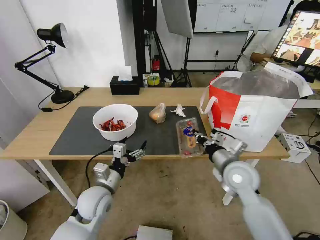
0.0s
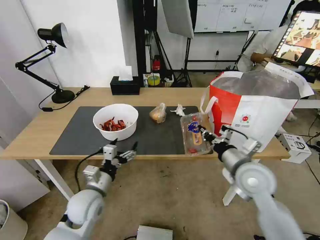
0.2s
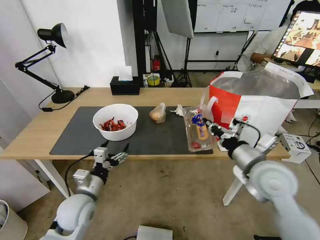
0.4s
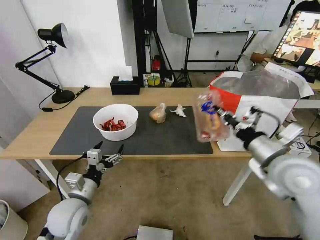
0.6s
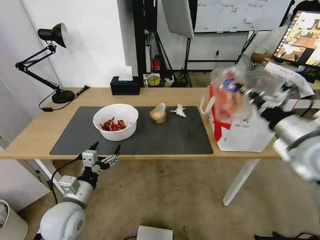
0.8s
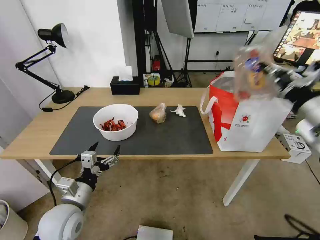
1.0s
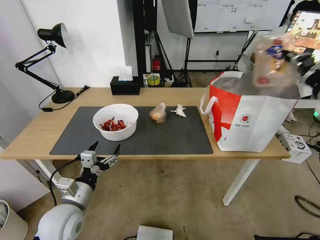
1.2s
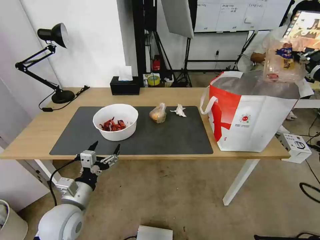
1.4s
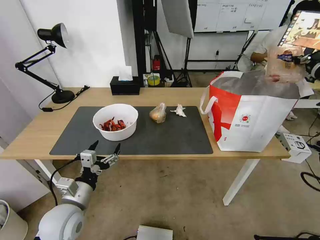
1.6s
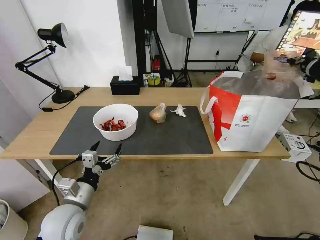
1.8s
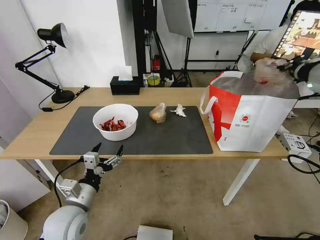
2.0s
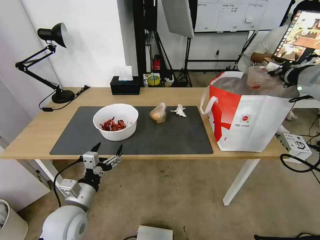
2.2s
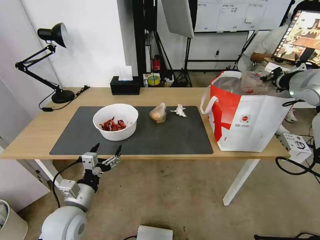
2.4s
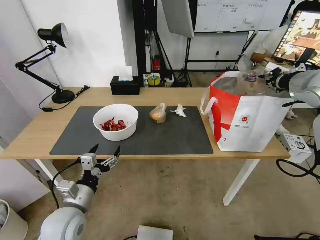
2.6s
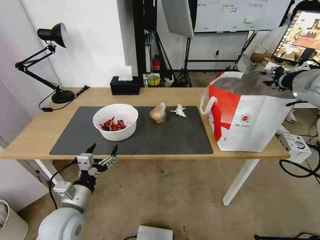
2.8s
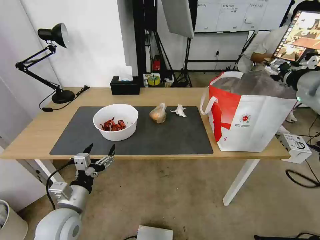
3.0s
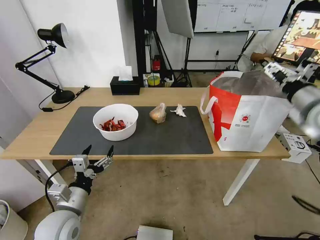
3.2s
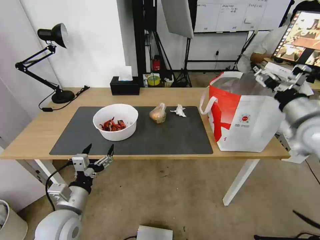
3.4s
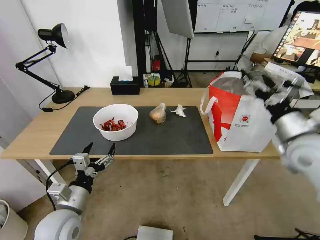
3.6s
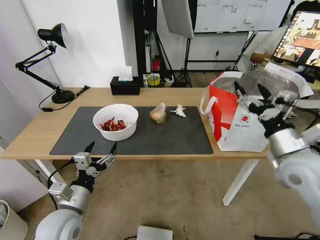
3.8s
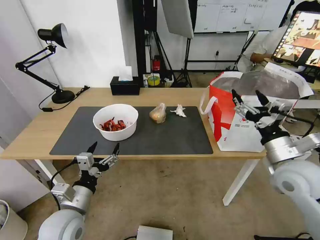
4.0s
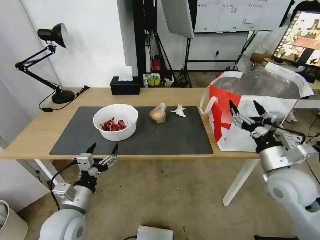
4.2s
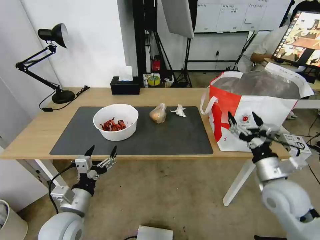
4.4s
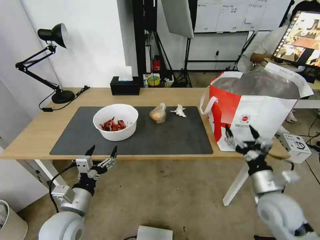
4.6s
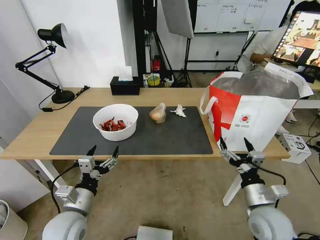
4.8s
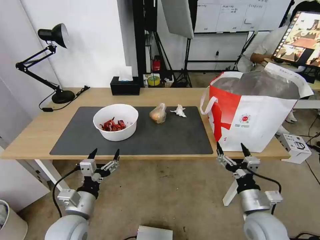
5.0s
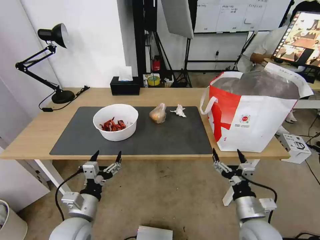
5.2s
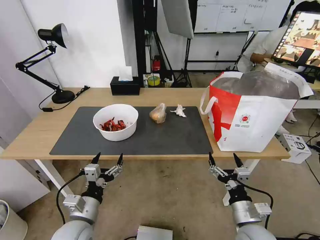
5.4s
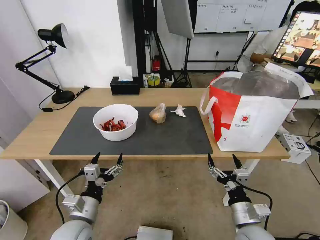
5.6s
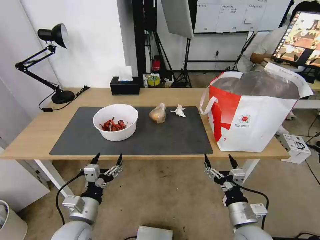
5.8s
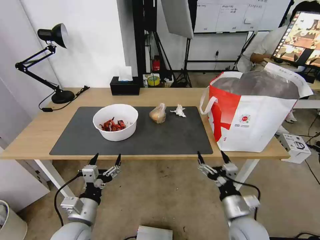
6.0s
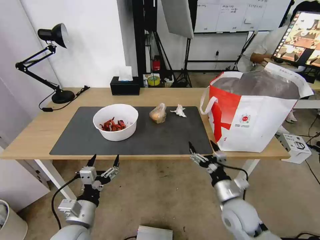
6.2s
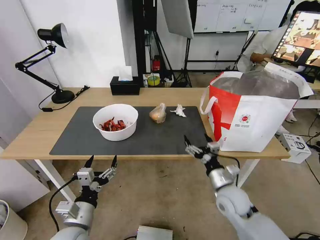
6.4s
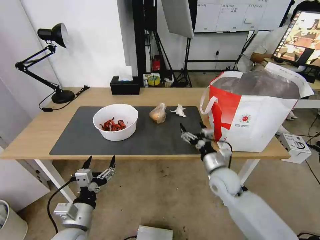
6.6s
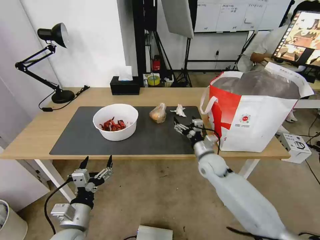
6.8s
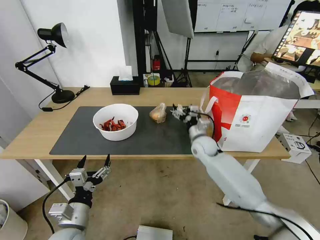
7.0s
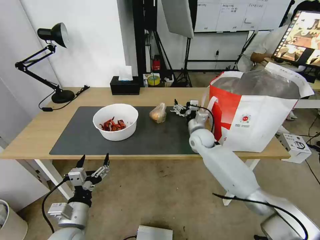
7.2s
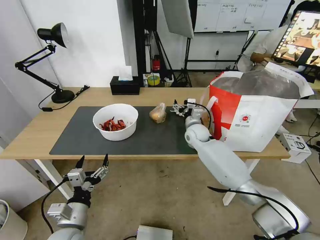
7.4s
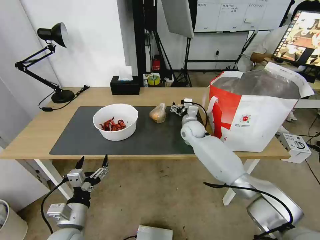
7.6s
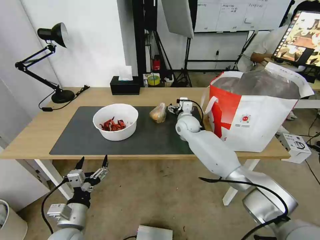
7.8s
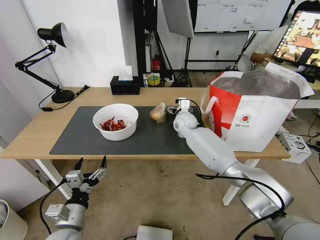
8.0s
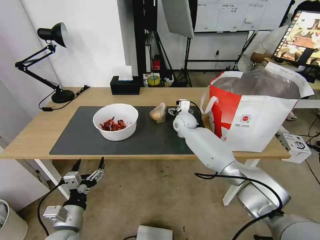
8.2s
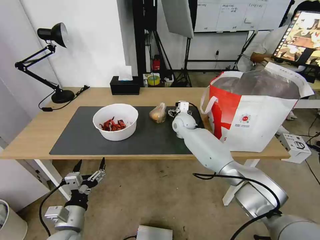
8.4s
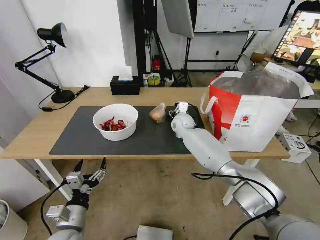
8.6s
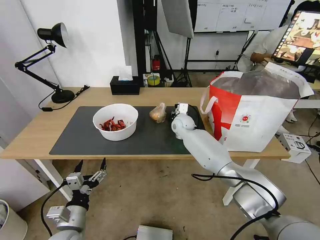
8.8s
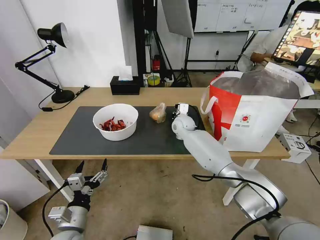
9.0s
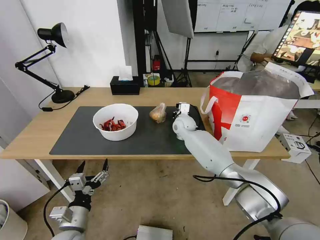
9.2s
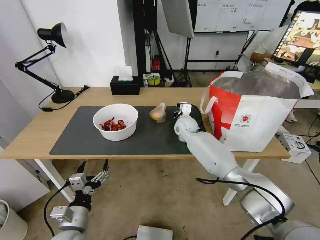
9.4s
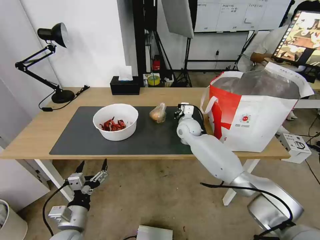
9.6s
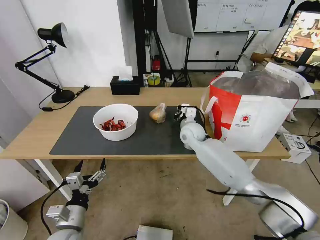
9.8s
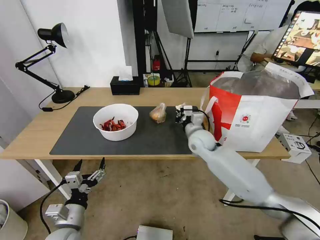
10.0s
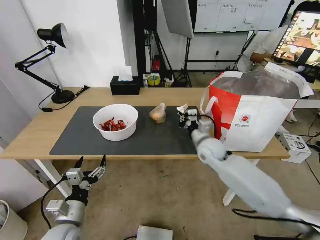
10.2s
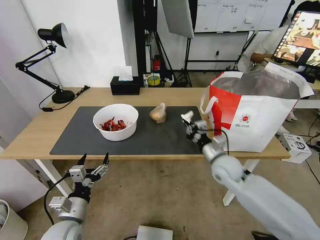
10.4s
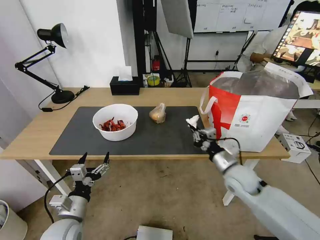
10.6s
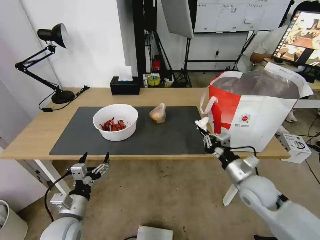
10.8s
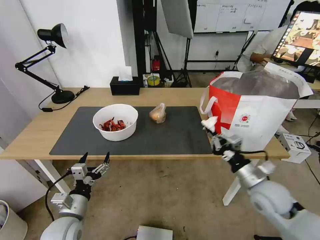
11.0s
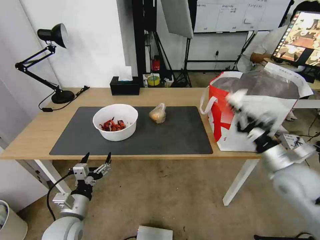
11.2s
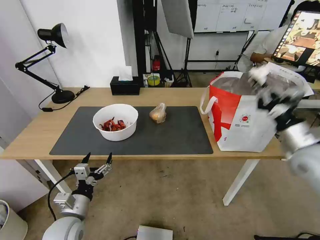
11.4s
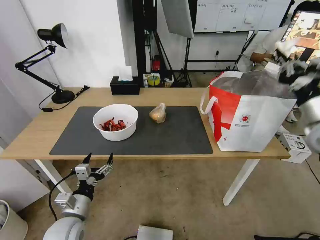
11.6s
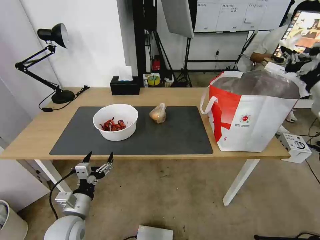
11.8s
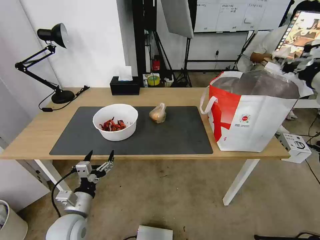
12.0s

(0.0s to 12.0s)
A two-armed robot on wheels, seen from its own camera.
Task of the whole recording: Pick up the trash from the table and place it into the takeout bag.
0.0s - 1.6s: The left gripper travels backward and to the left by roughly 10 cm, while the right gripper shifts some 35 cm upward and to the right.
1.6s - 3.0s: The right gripper heads forward, covering approximately 5 cm, and opens.
3.0s - 4.4s: The right gripper is displaced downward, backward and to the left by approximately 30 cm, and opens its fingers.
4.4s - 6.0s: The right gripper shifts approximately 15 cm downward, to the left and backward.
6.0s - 7.6s: The right gripper shifts approximately 35 cm forward.
7.6s - 9.0s: The right gripper closes up.
9.0s - 10.4s: The right gripper shifts about 20 cm backward and to the right.
10.4s - 12.0s: The right gripper travels upward and to the right by some 35 cm.

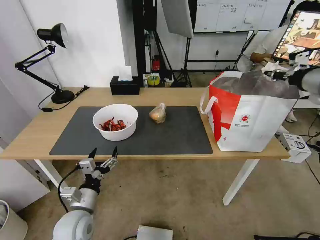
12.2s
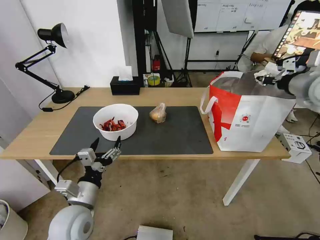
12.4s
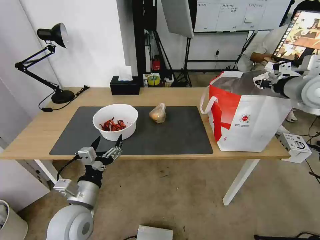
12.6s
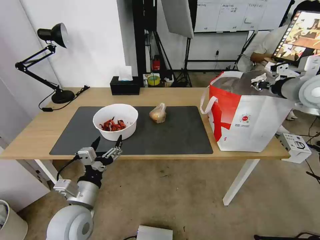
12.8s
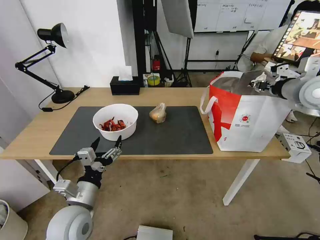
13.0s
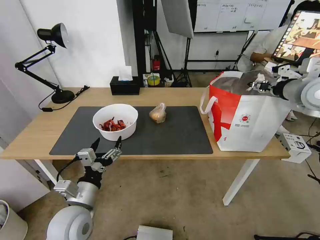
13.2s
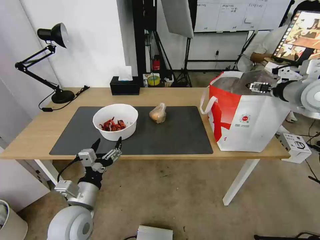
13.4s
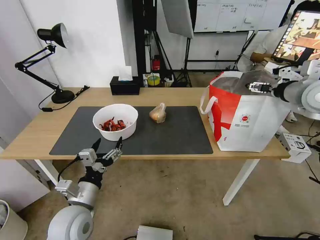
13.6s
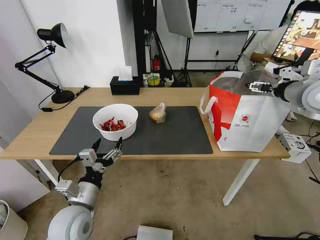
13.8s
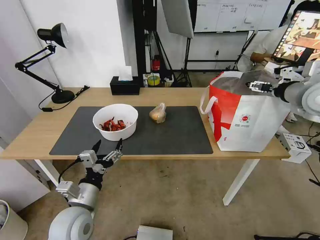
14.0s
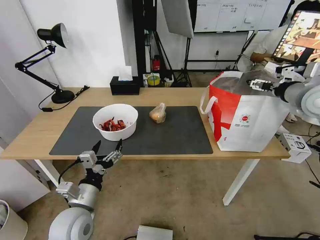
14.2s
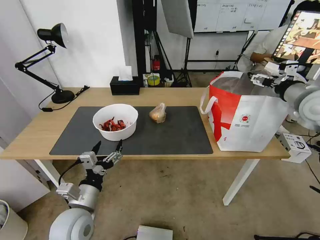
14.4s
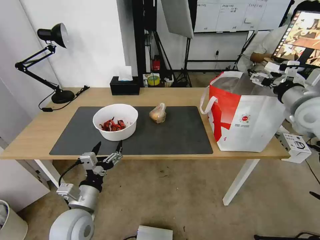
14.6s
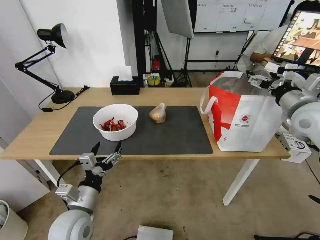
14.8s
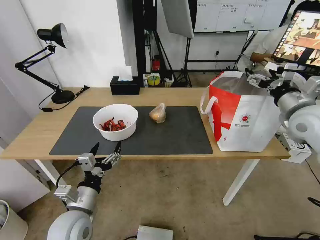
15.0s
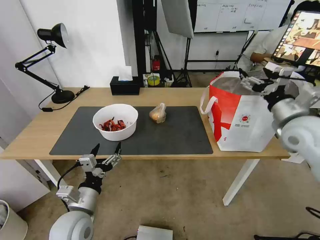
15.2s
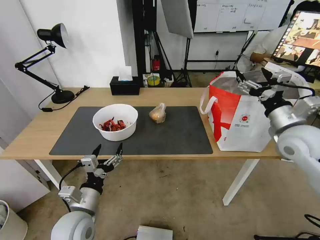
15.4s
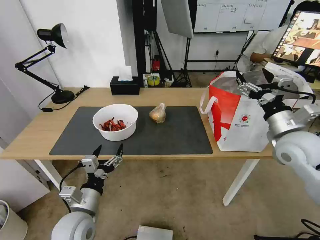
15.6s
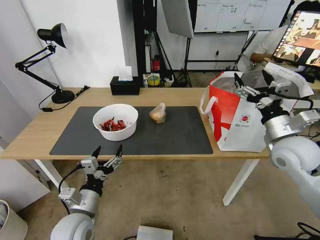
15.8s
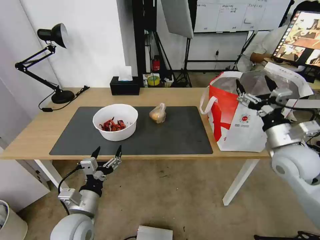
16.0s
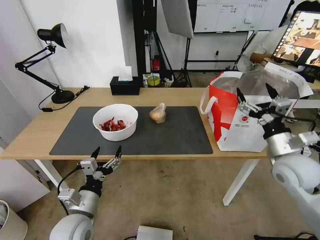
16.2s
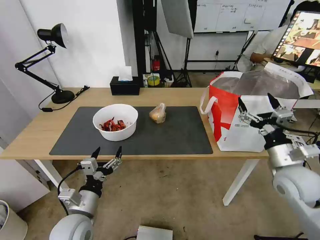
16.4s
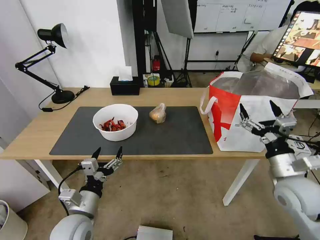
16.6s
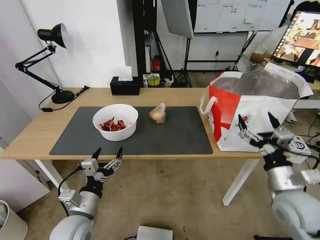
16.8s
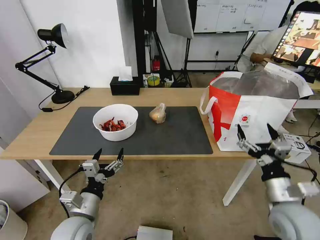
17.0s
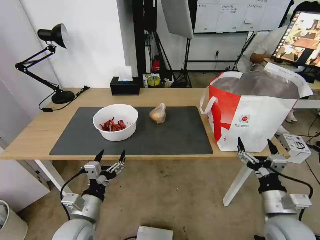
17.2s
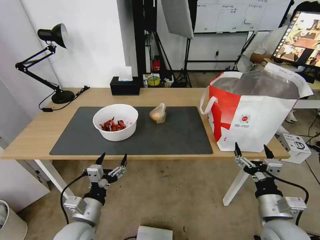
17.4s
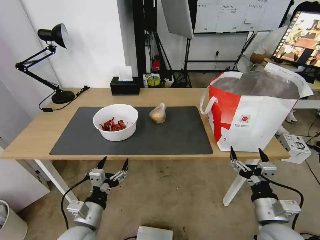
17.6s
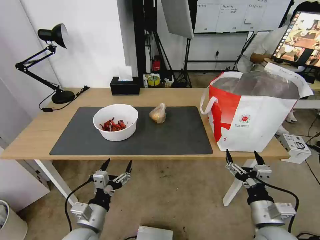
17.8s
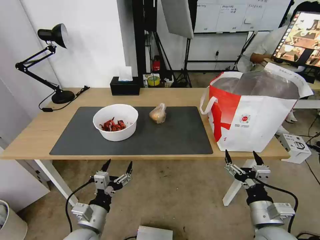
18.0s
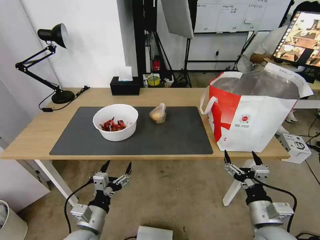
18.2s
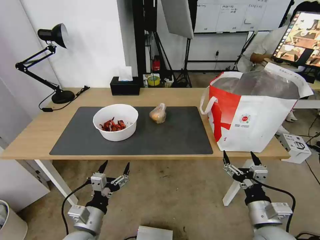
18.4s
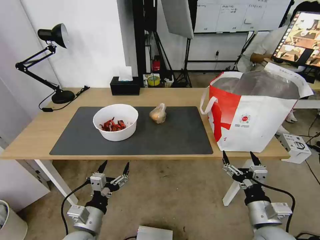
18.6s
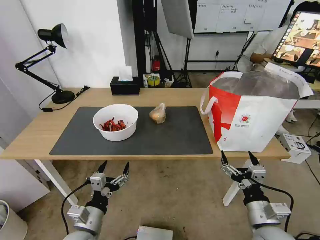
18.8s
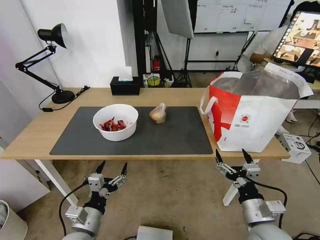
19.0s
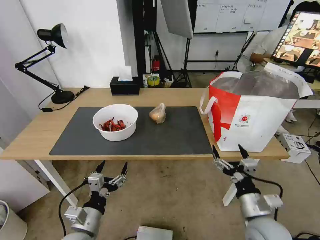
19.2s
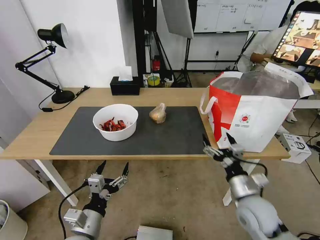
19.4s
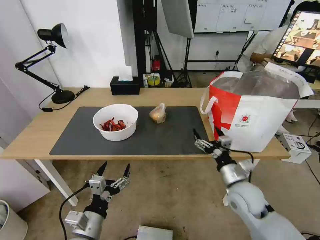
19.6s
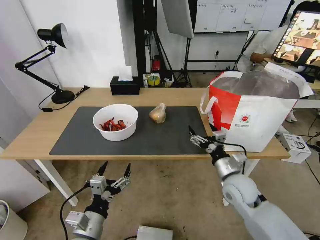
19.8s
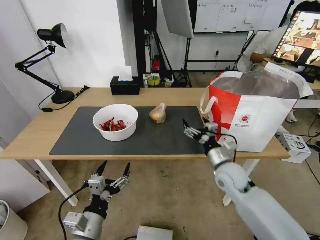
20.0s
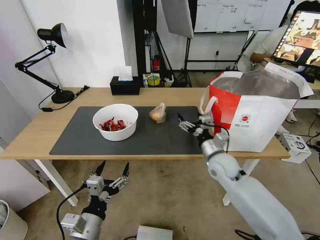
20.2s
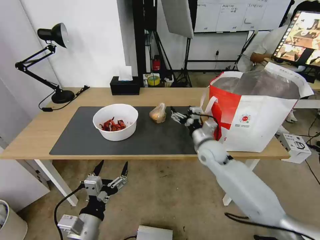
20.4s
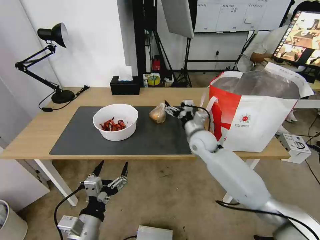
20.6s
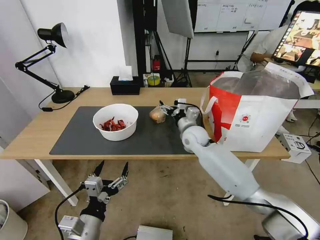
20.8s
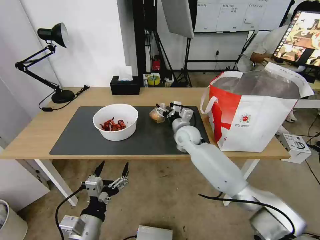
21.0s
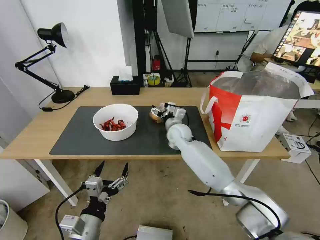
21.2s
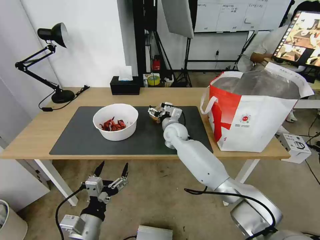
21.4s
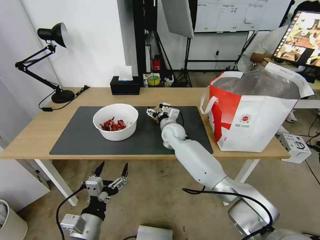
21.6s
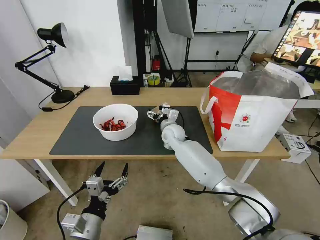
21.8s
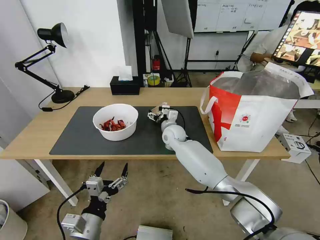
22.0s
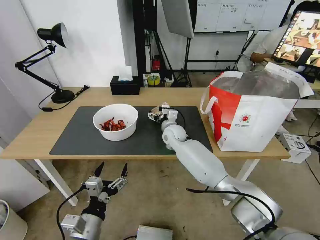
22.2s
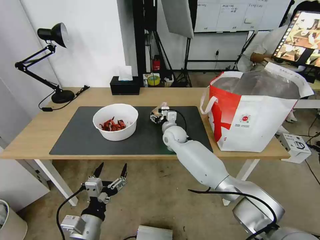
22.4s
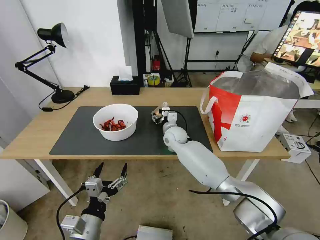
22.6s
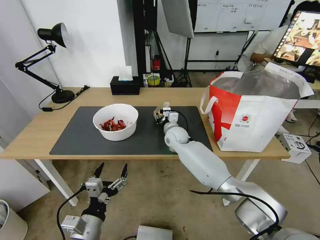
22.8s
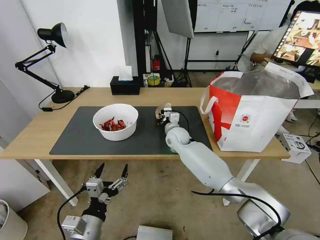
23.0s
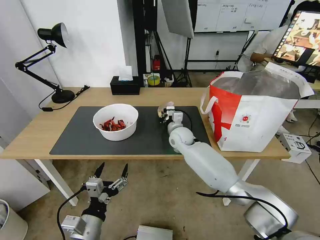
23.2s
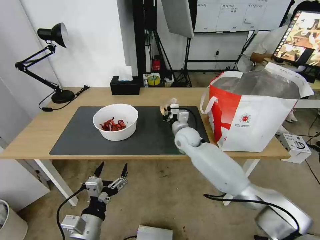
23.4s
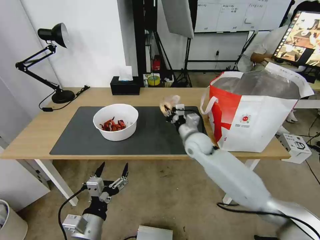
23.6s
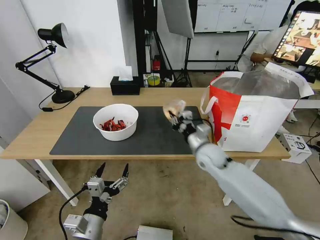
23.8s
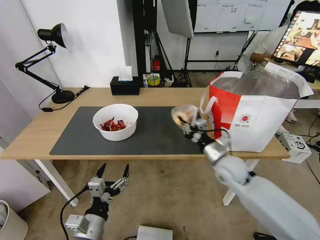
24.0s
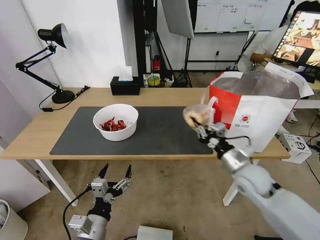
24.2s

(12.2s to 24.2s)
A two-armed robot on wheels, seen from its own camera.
Task of the whole recording: Pick up the trash from the table and place it into the takeout bag.
12.2s - 13.8s: The right gripper opens its fingers; the left gripper ends up some 5 cm from where it was.
13.8s - 15.2s: The right gripper moves downward and backward, approximately 10 cm.
15.2s - 16.6s: The right gripper moves downward and backward, about 15 cm.
16.6s - 18.2s: The right gripper goes some 15 cm backward, downward and to the left.
18.2s - 19.8s: The right gripper travels forward by some 15 cm.
19.8s - 21.2s: The right gripper is displaced forward and to the left by some 25 cm.
21.2s - 22.6s: The right gripper heads to the left, covering roughly 5 cm, and closes.
22.6s - 24.2s: The right gripper moves to the right and backward, some 25 cm, and closes up.
